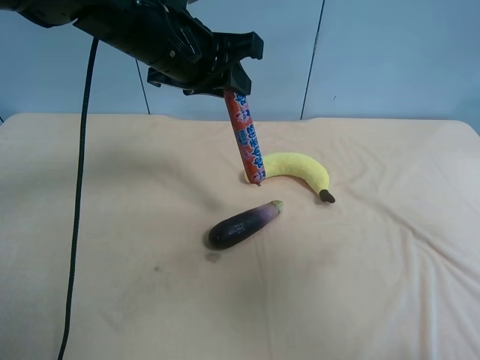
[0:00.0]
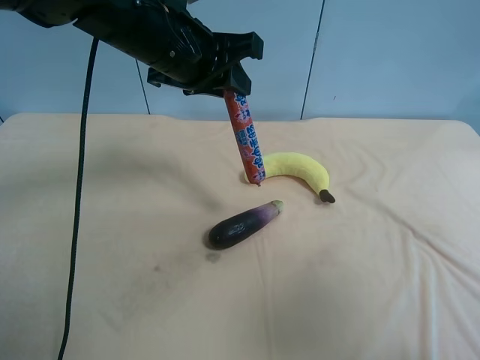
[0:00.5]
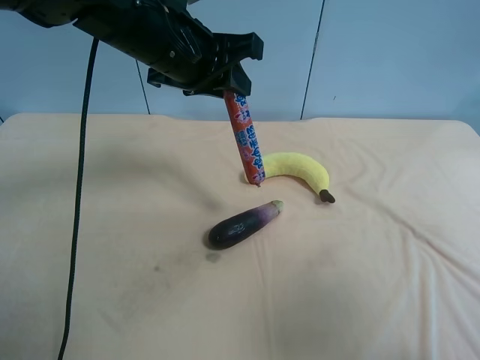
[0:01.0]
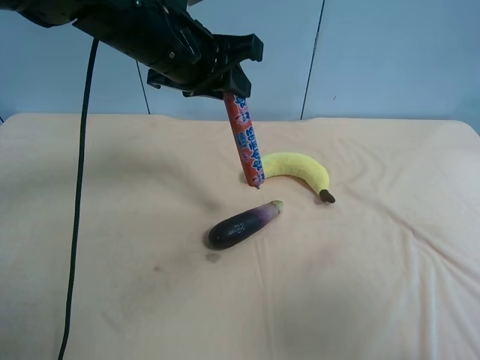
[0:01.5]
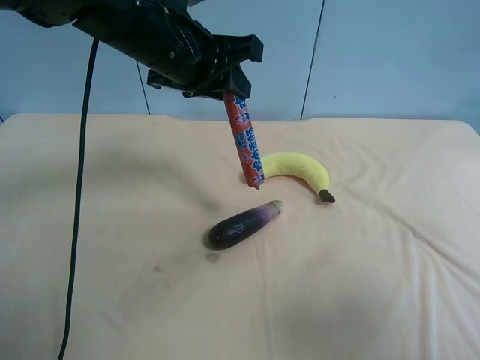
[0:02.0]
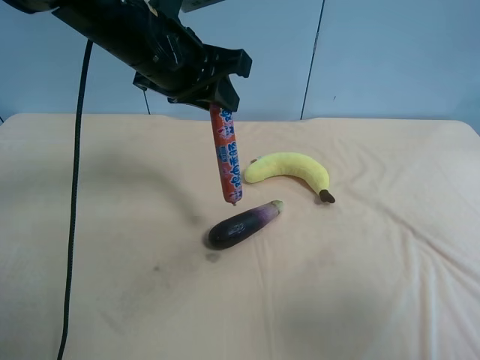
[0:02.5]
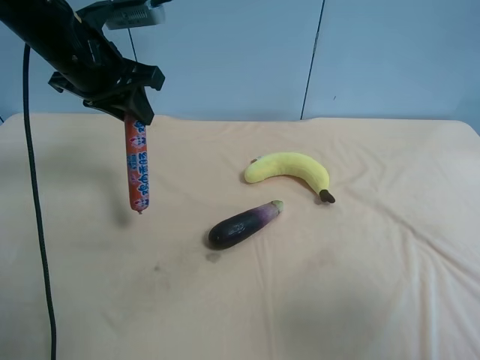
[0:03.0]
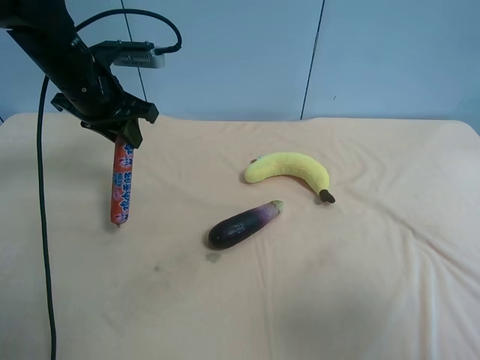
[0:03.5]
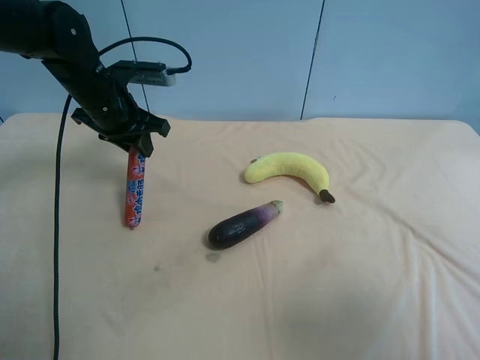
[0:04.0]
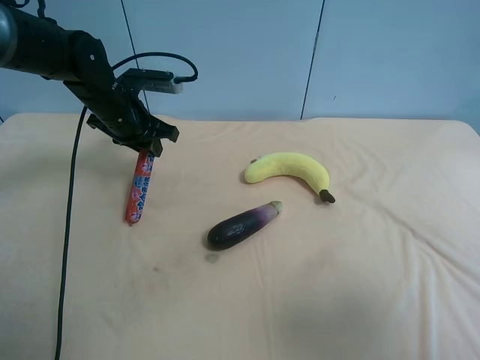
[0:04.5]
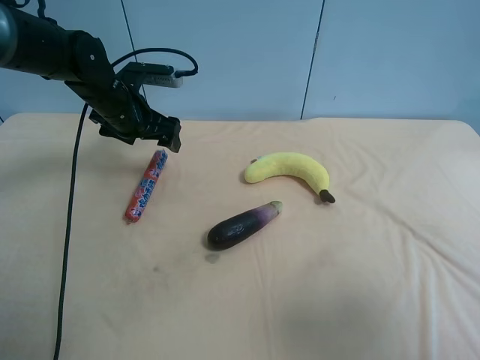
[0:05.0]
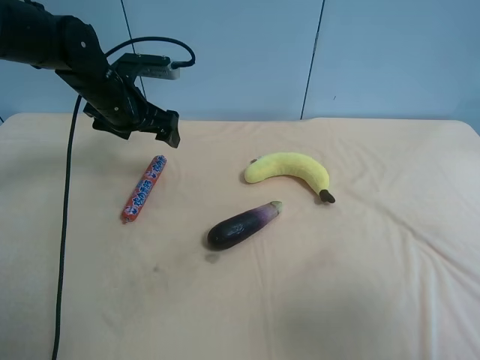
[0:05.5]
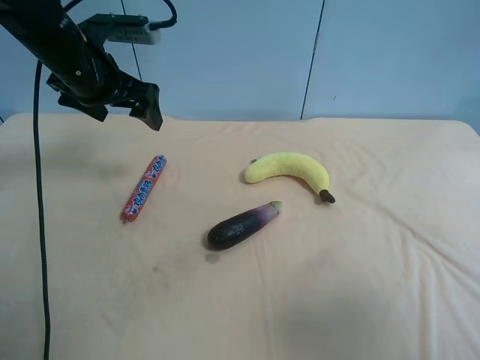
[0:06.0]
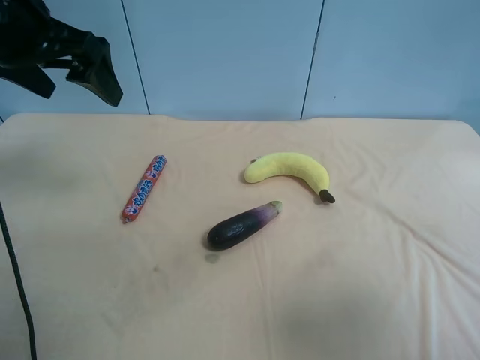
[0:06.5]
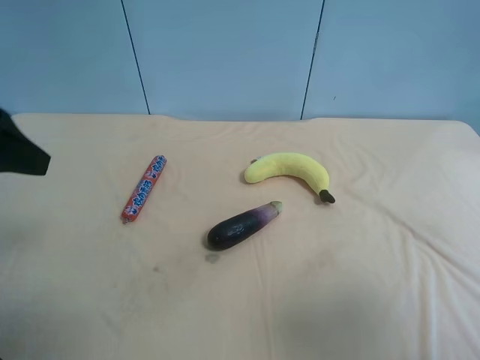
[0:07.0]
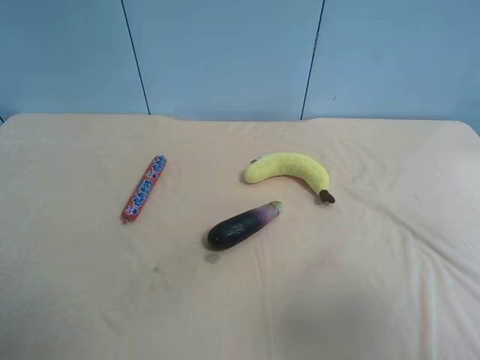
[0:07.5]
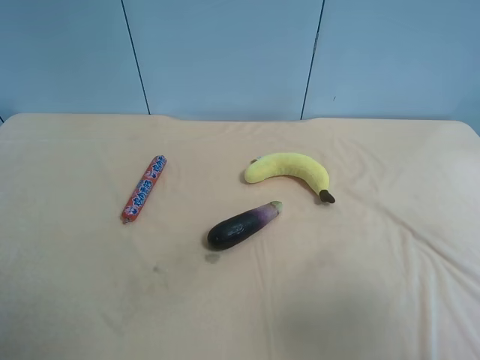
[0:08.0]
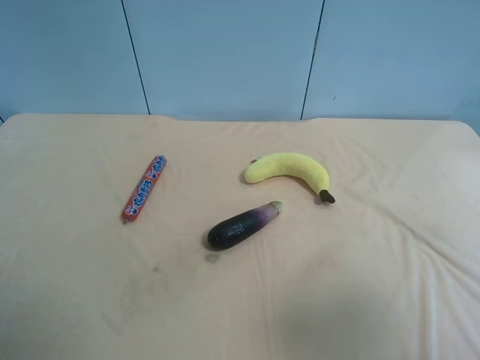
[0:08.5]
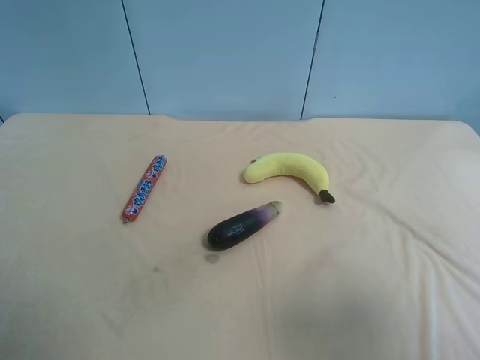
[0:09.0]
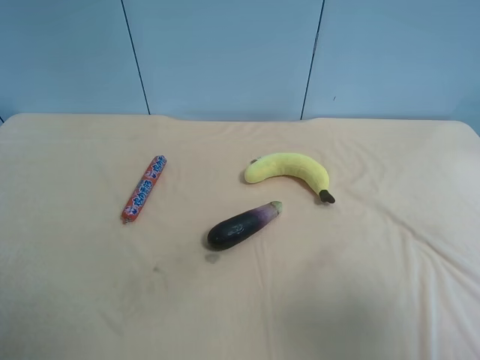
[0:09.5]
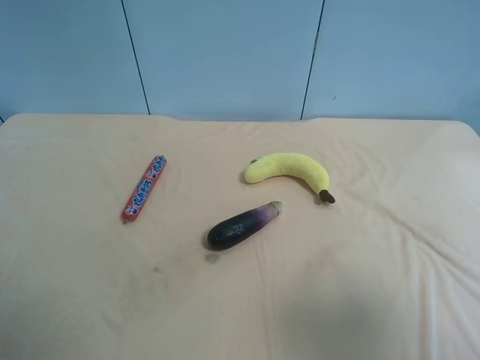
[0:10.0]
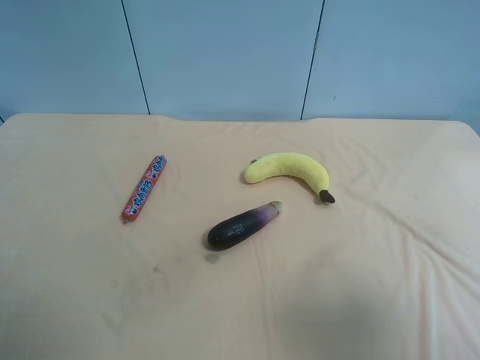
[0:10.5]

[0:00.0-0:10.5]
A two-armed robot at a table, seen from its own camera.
Task of the whole recording: use the right gripper to pick up the item and transfer it from the right gripper to the left gripper.
0:00.0 to 0:02.0: The right gripper moves downward, some 10 cm.
0:02.0 to 0:04.0: The left gripper is displaced to the left, downward and forward by approximately 15 cm.
0:04.0 to 0:06.5: The left gripper travels upward and backward by roughly 15 cm, and opens its fingers.
0:06.5 to 0:08.5: The left gripper goes some 30 cm backward.

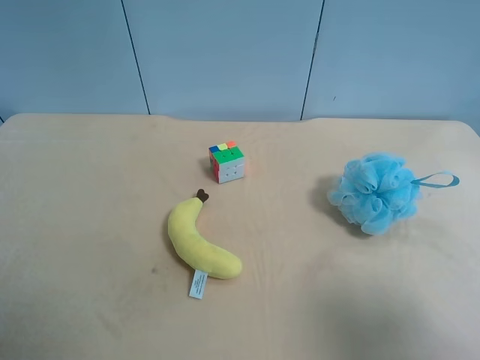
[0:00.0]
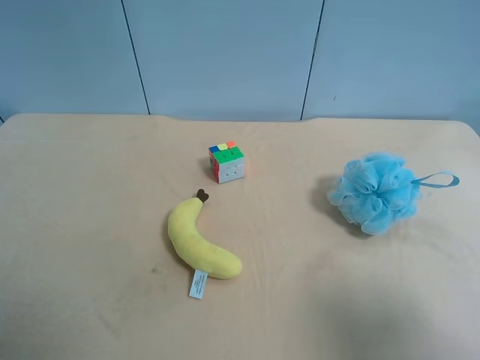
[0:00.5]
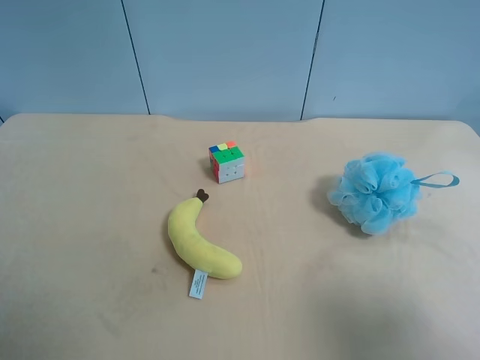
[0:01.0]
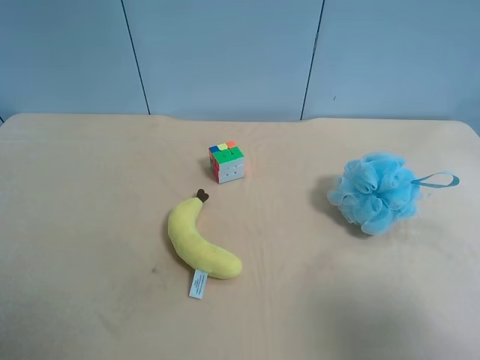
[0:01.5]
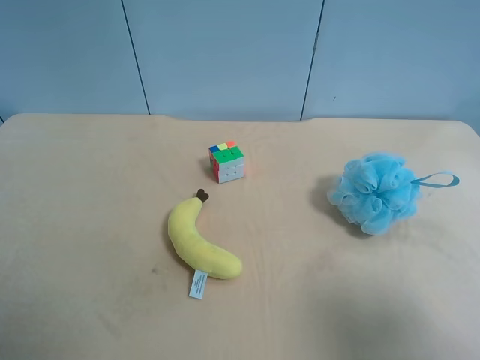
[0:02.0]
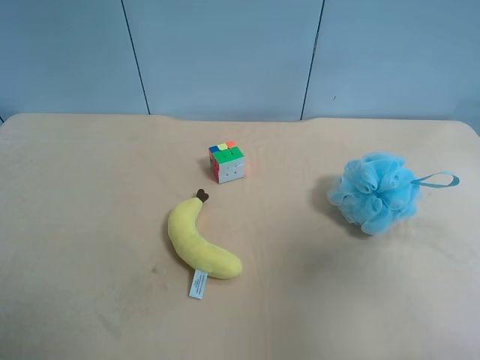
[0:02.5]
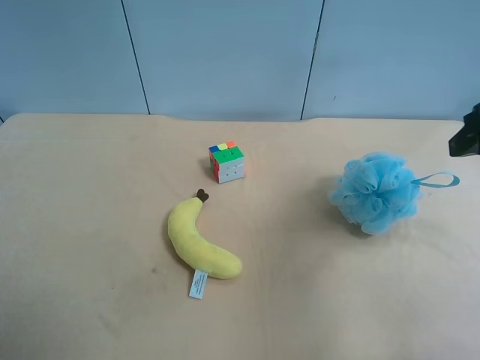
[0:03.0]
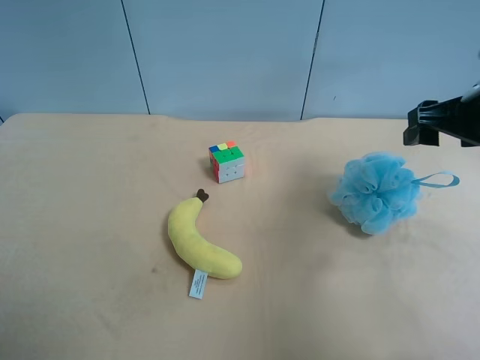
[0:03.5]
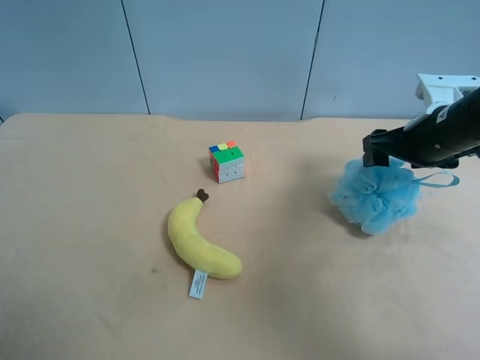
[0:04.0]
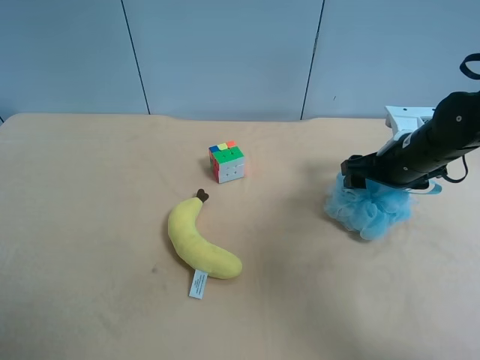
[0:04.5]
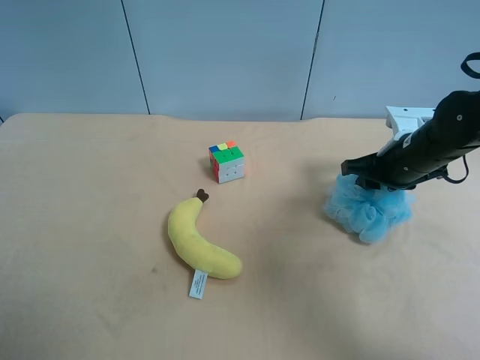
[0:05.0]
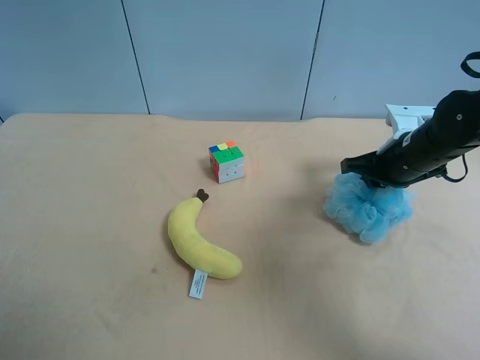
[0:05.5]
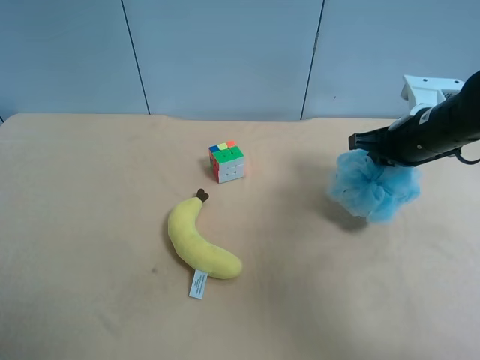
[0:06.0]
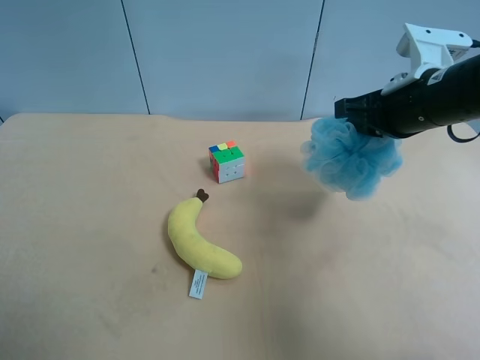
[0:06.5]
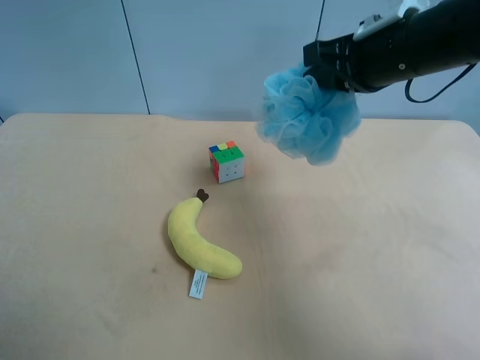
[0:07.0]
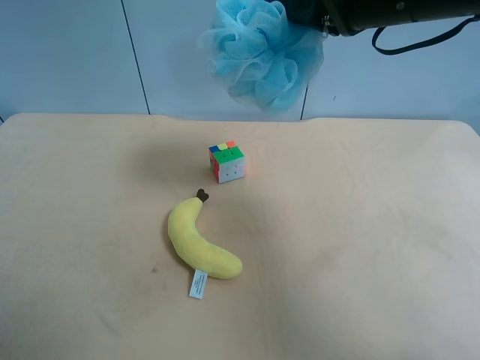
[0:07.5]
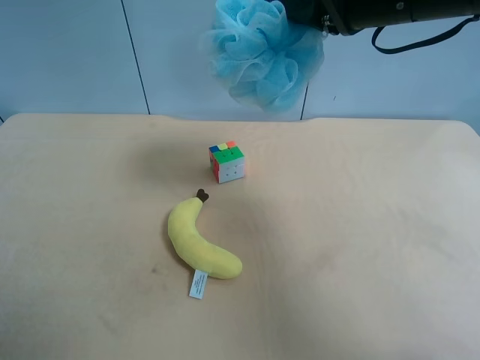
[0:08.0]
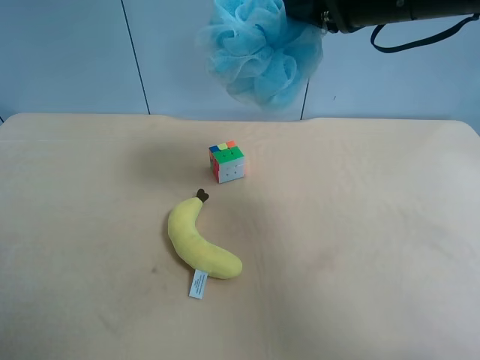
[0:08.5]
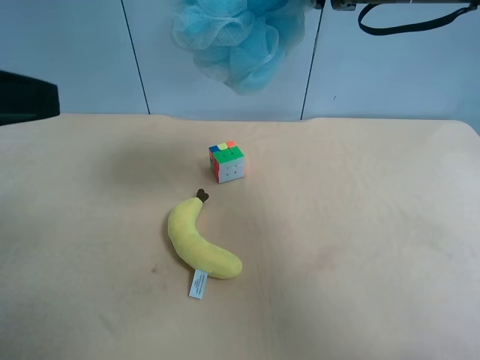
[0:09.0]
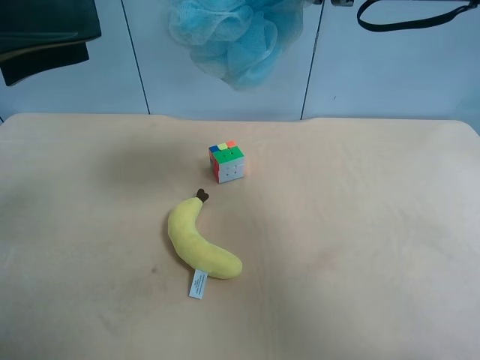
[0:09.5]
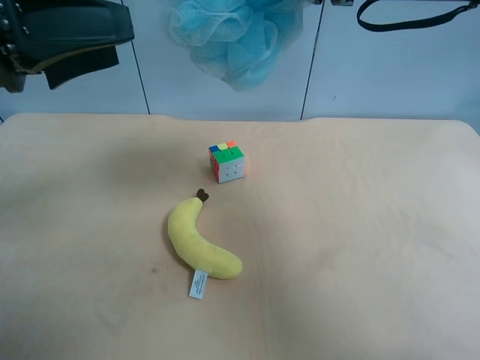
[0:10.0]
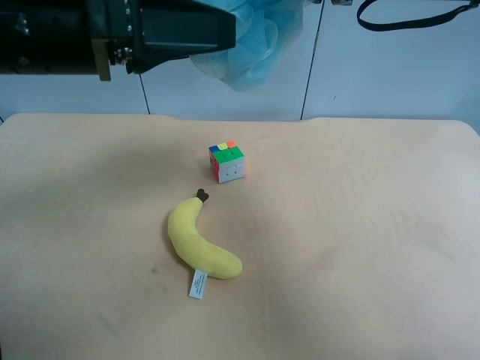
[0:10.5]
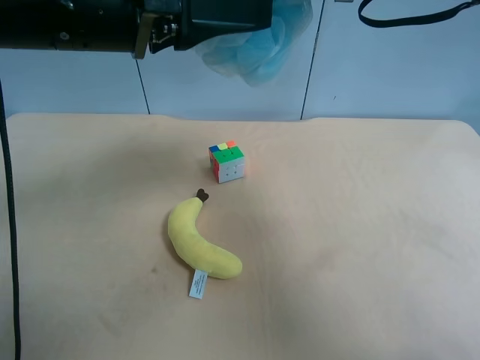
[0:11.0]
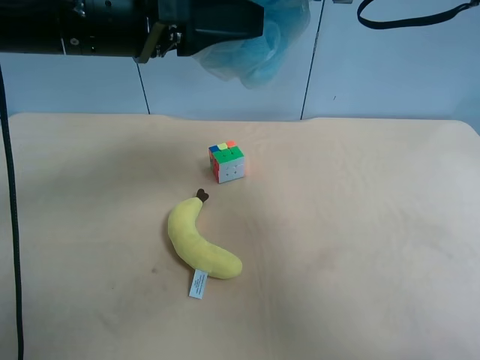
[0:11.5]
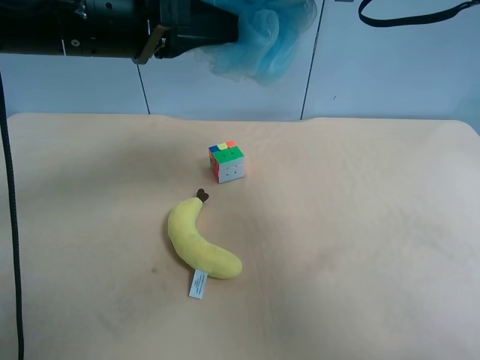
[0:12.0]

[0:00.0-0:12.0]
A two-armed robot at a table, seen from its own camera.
Task of the whole recording: use the right gripper to pick up the item and transfer it from the right gripper to the left gripper.
0:00.0 to 0:02.0: Both grippers stay put.
0:02.0 to 0:04.0: The right gripper heads forward, covering approximately 30 cm.
0:04.0 to 0:06.0: The right gripper closes up.
0:06.0 to 0:08.0: The right gripper shifts about 20 cm upward and to the left.
0:08.0 to 0:10.0: The left gripper shifts some 25 cm forward and to the right.
0:10.0 to 0:12.0: The left gripper is displaced to the right by roughly 10 cm, and closes.

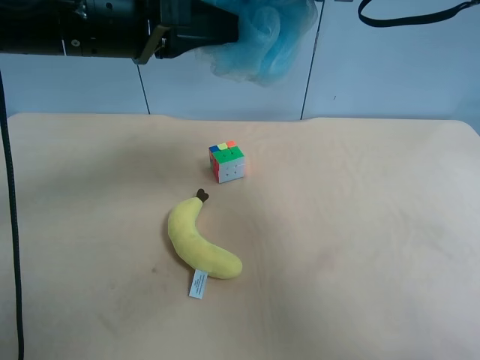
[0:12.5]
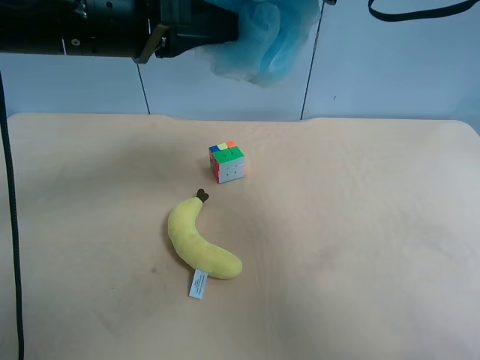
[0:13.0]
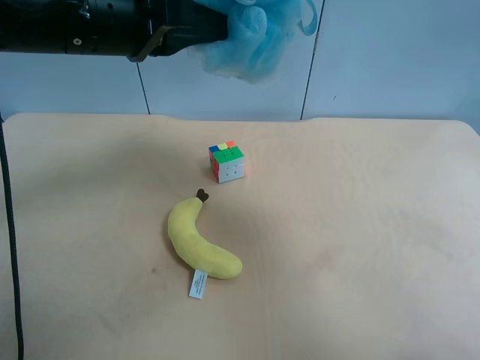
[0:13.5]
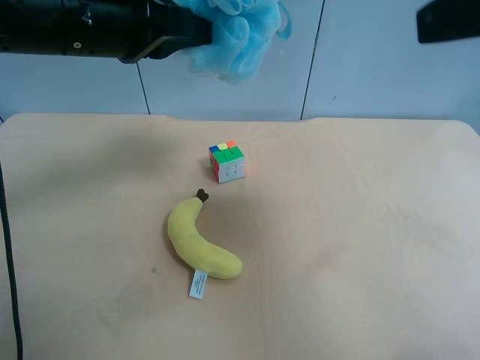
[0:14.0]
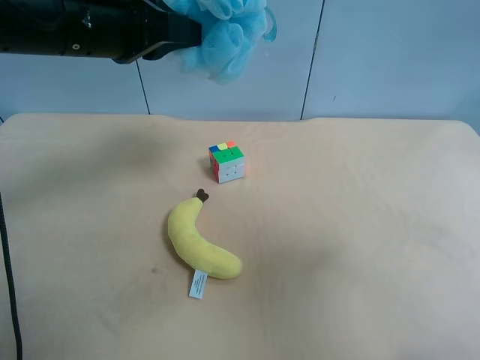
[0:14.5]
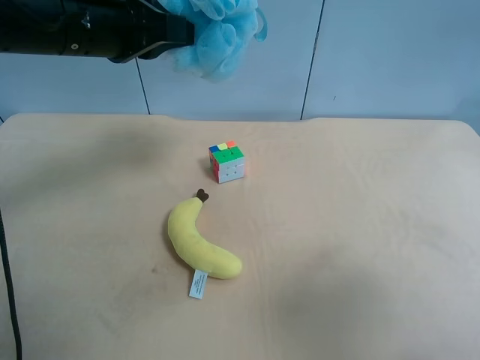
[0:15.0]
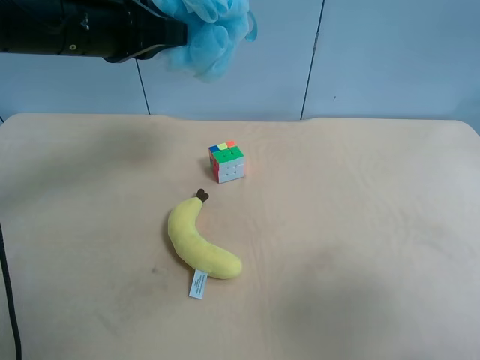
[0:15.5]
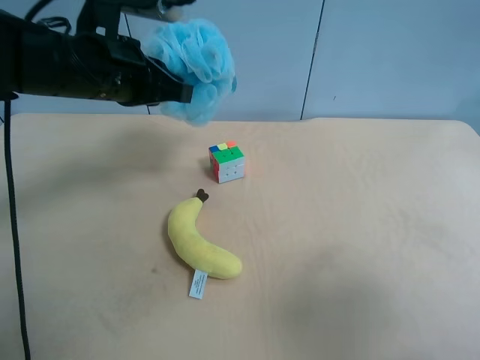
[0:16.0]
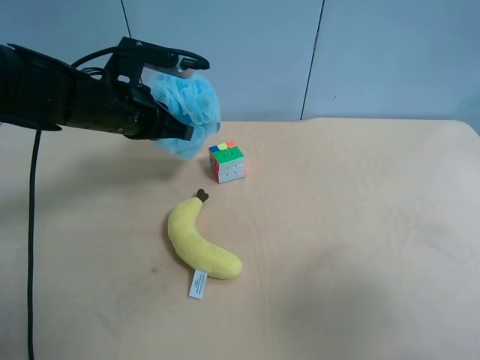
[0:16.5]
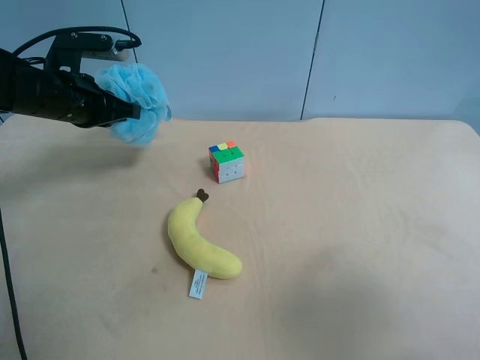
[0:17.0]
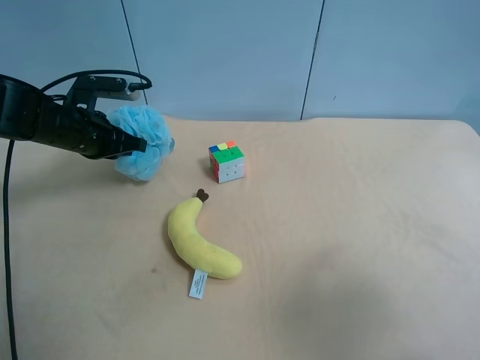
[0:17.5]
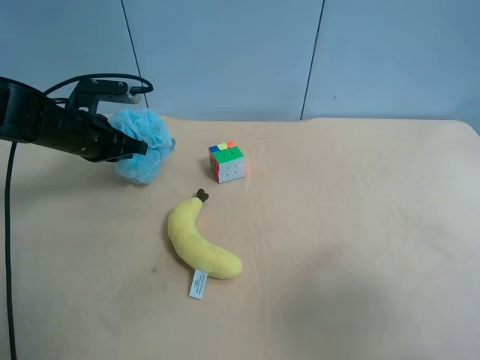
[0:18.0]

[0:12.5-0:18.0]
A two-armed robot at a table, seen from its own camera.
Task of the whole recording: use the right gripper to pick up the item and transfer it from the right gripper to the left gripper.
0:12.5 to 0:14.5: The right gripper shifts some 25 cm backward and to the right, and opens.
0:14.5 to 0:16.0: Both grippers move downward, about 5 cm.
0:16.0 to 0:18.0: The left gripper is displaced downward, to the left and forward by some 15 cm.
